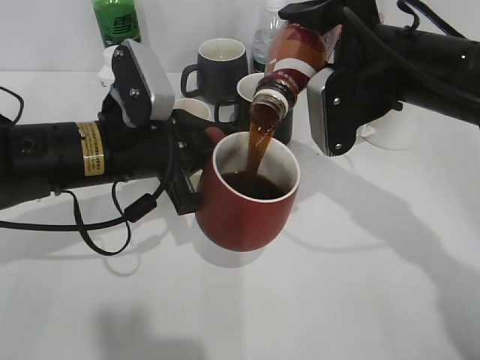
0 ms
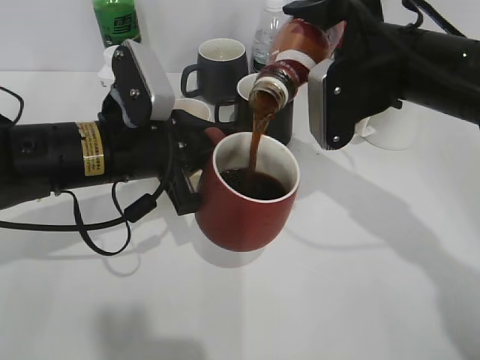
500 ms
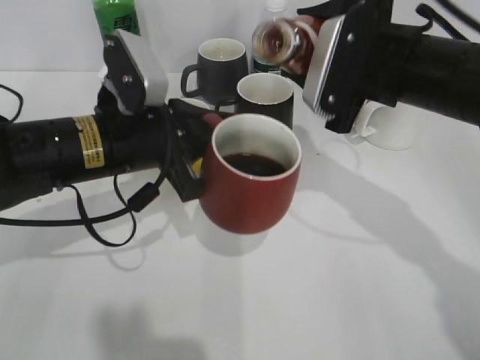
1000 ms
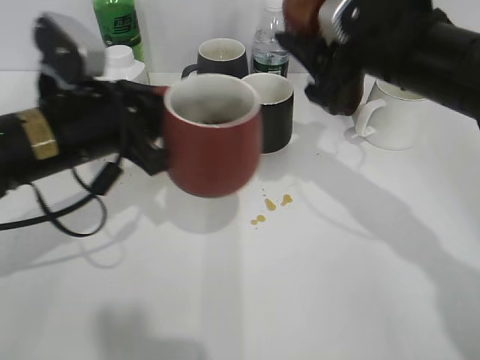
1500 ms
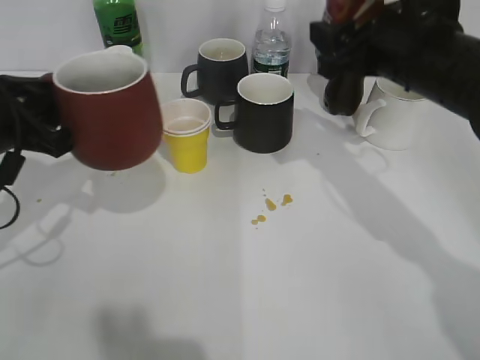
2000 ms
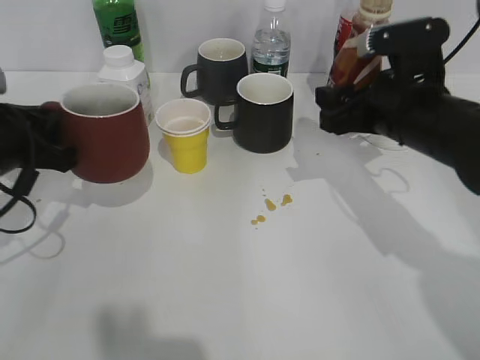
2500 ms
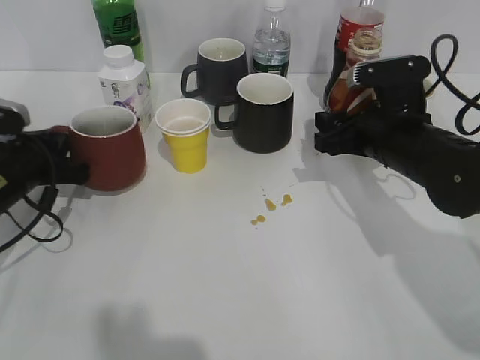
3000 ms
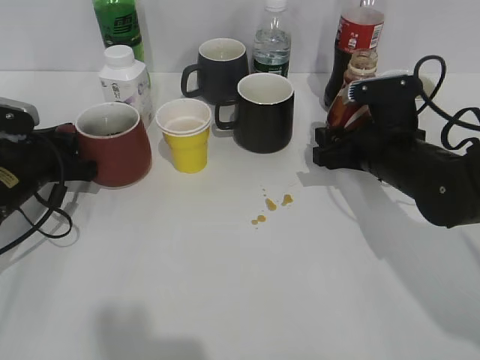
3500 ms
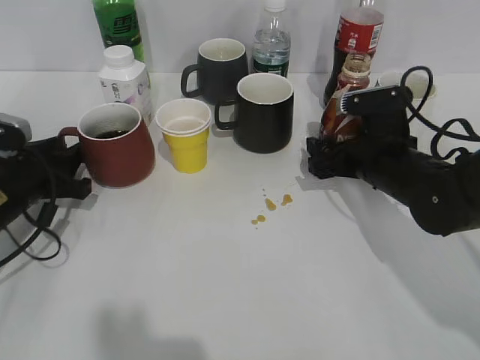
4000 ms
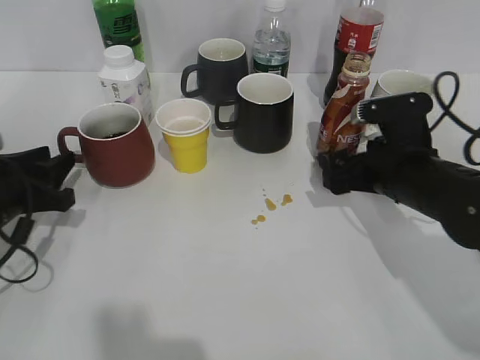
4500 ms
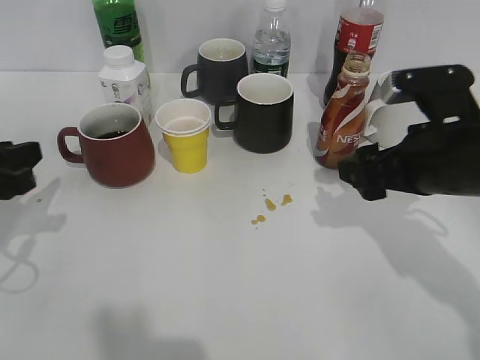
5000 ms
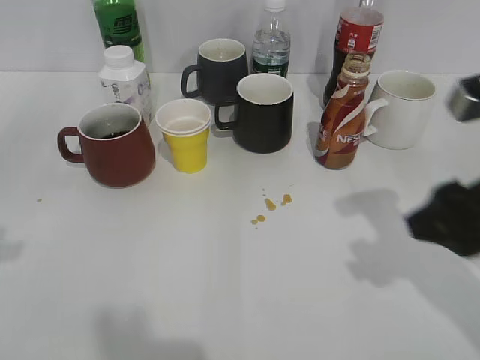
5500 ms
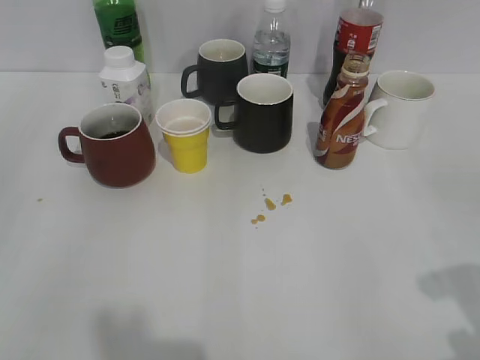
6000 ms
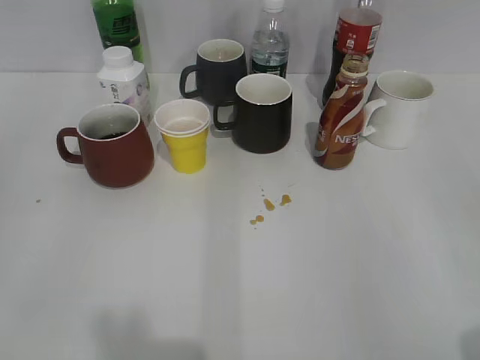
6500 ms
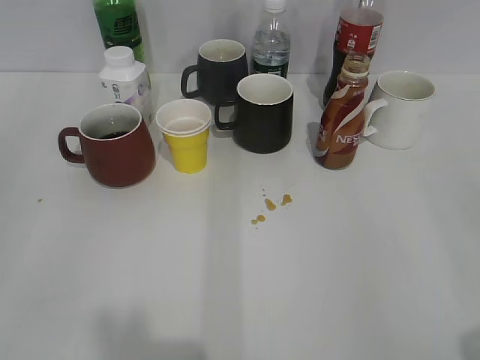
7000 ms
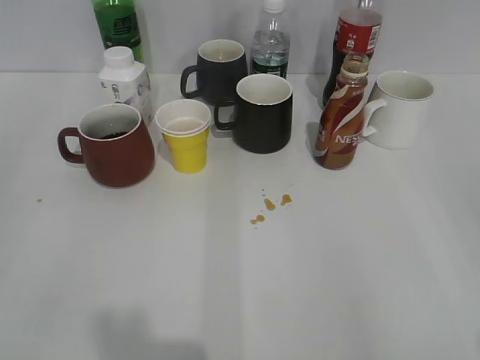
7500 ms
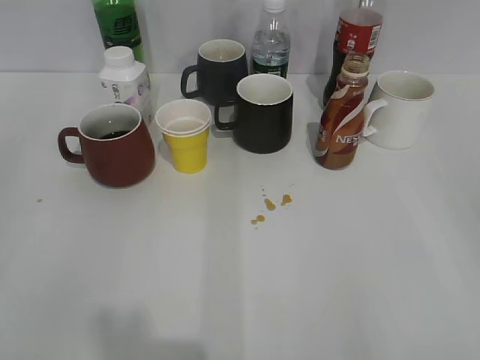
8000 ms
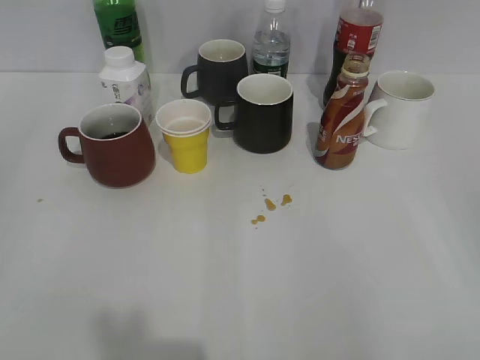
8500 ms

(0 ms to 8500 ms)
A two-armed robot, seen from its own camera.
Step, 1500 ms - 4500 ms: Place the red cup on the table with left gripper.
0 ms - 2000 ms: The left gripper moves to the left, roughly 10 cm.
2000 ms - 4000 ms: Both grippers travel together downward, about 10 cm. The right gripper opens up, while the left gripper opens its fingers.
4000 ms - 6500 ms: The left gripper shifts some 35 cm backward and upward. Meanwhile the right gripper shifts approximately 40 cm backward, upward and to the right, and closes its fingers.

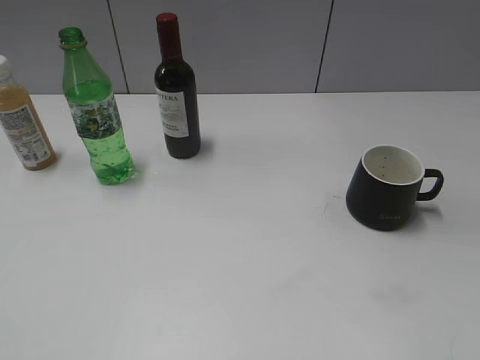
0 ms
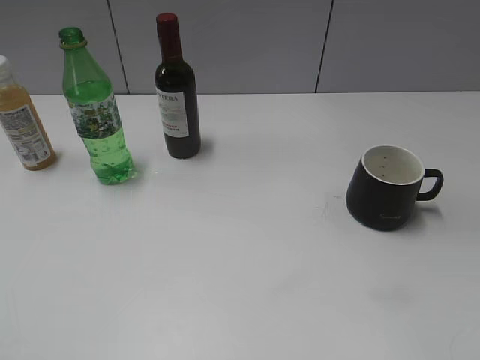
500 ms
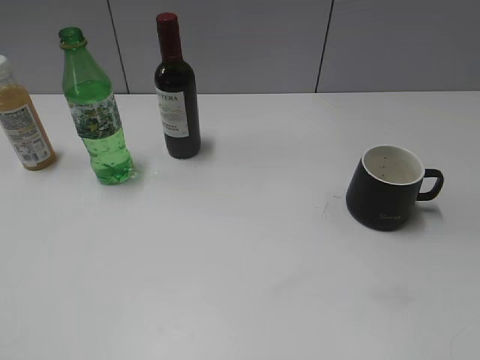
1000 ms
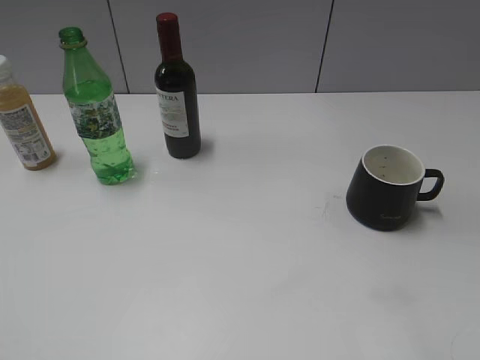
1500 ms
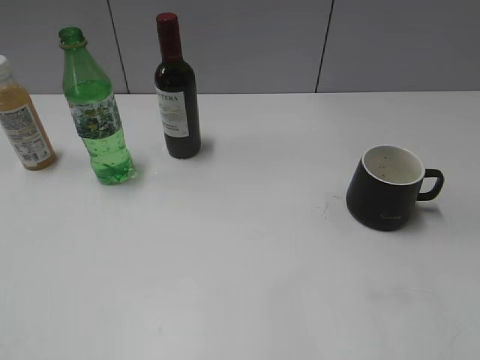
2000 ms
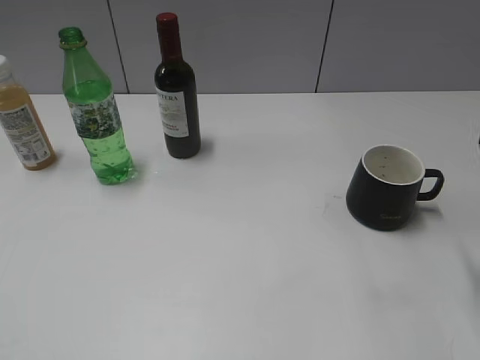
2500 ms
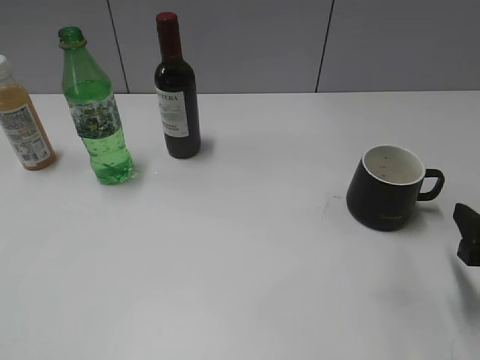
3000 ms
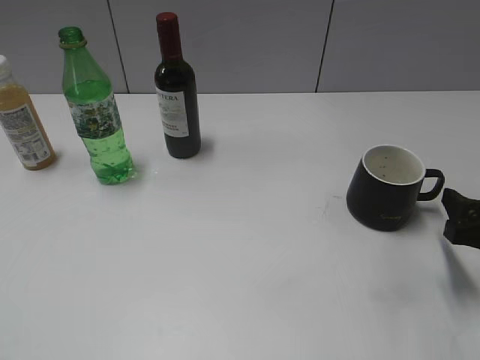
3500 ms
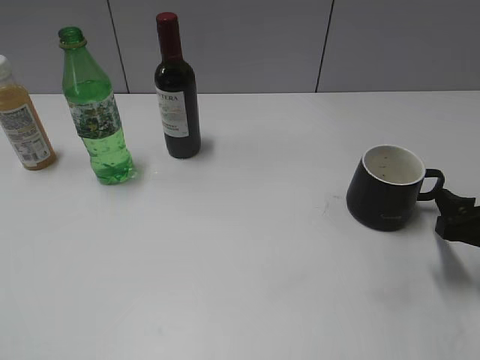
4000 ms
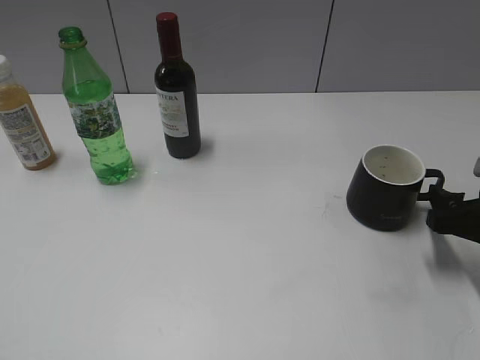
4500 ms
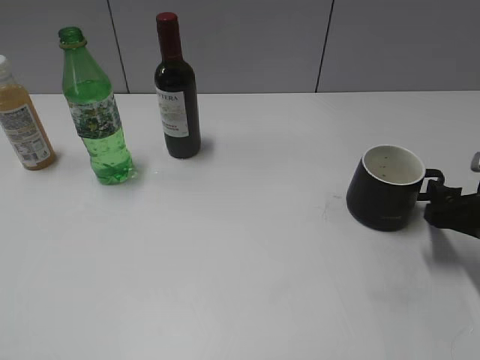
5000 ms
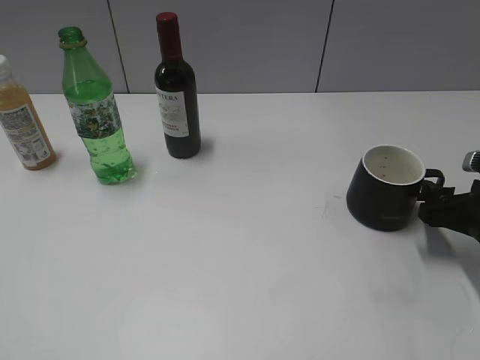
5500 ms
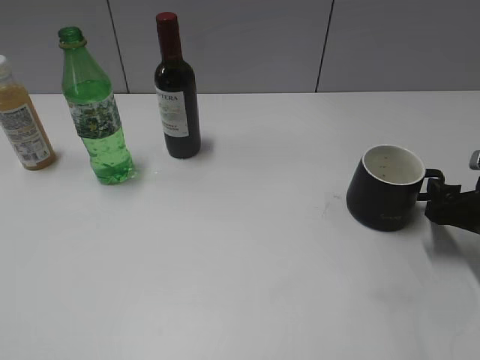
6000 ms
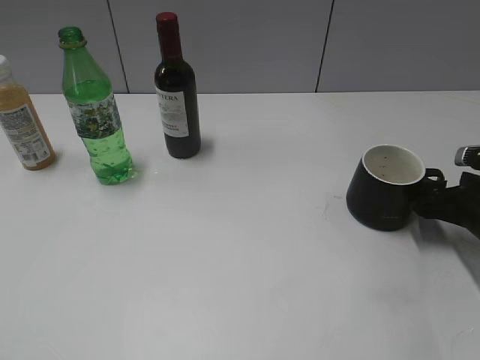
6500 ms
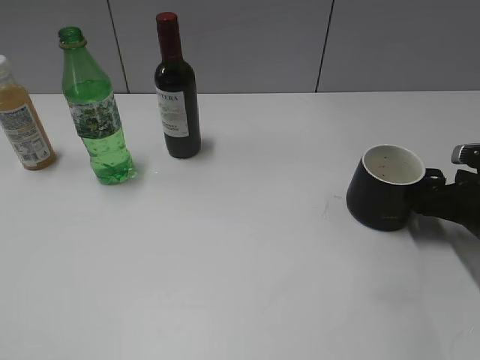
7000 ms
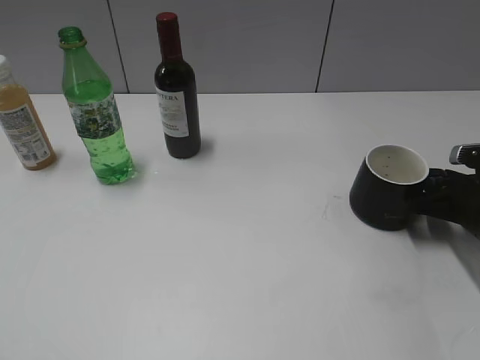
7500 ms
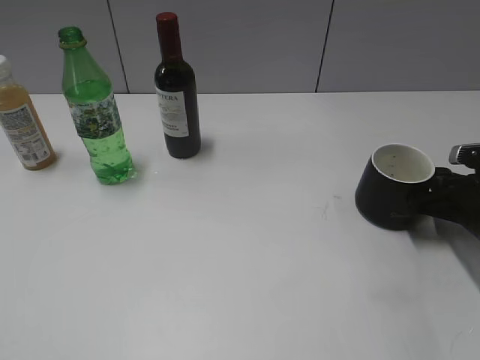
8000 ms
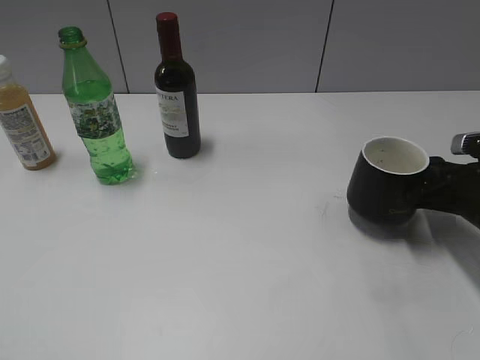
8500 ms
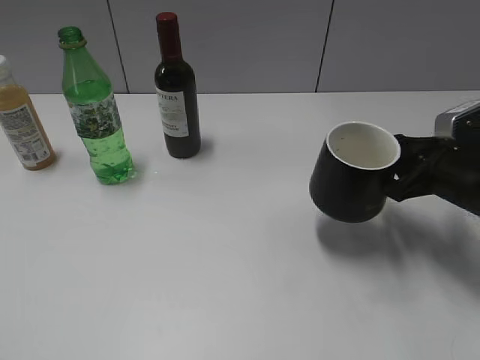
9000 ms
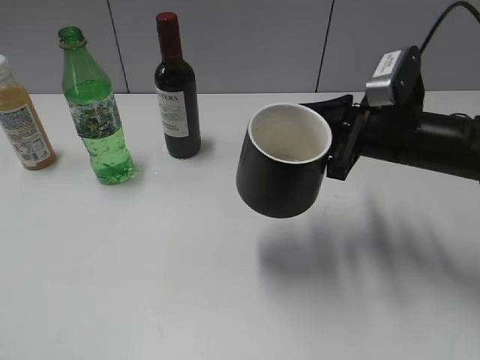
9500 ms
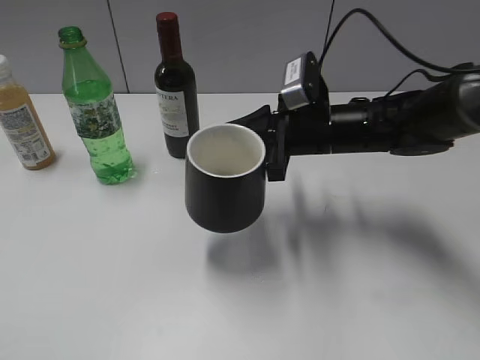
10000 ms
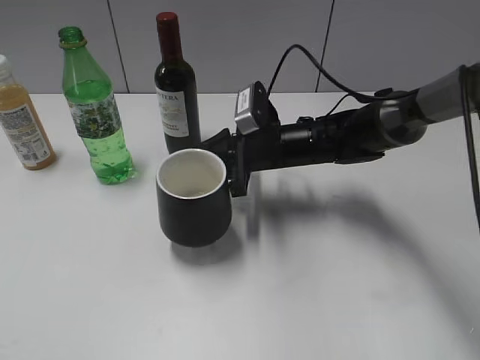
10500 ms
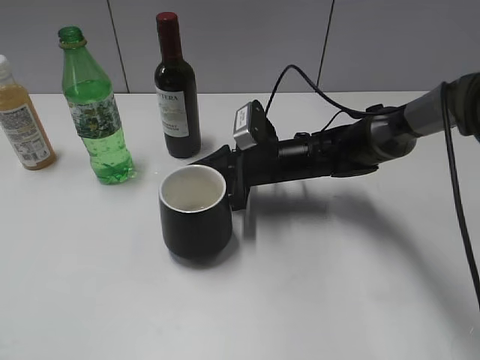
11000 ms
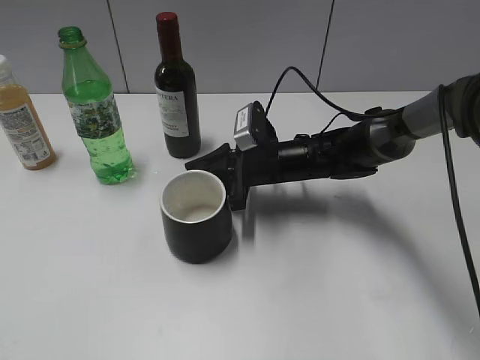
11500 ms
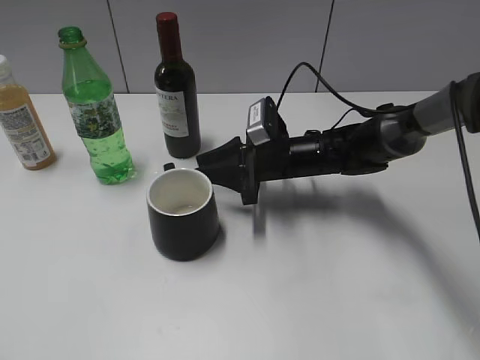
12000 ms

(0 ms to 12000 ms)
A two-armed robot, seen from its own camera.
Step, 1000 ms - 8000 ms: Grasp the black cup with right gripper.
Step, 8500 ms - 11500 ms: Place the black cup in the center of view with right gripper.
2000 ms - 4000 ms: The right gripper travels downward and forward by approximately 15 cm.
4000 ms - 6000 ms: The grippers move only a little.
6000 ms - 8000 ms: The right gripper closes up.
8000 ms - 10000 ms: The right gripper shifts approximately 20 cm to the left.
10000 ms - 12000 ms: The right gripper heads downward, covering about 10 cm.

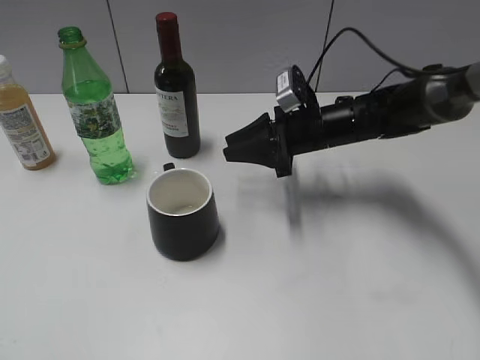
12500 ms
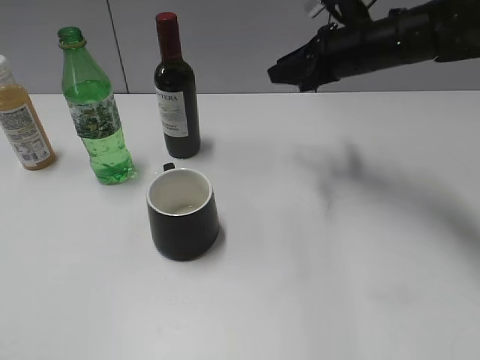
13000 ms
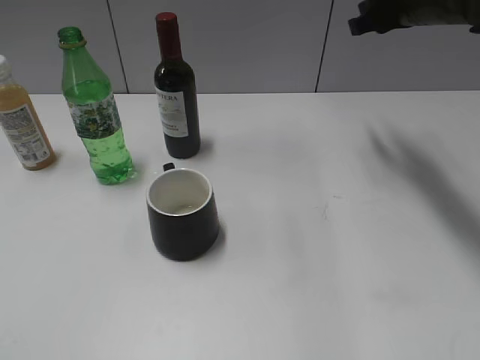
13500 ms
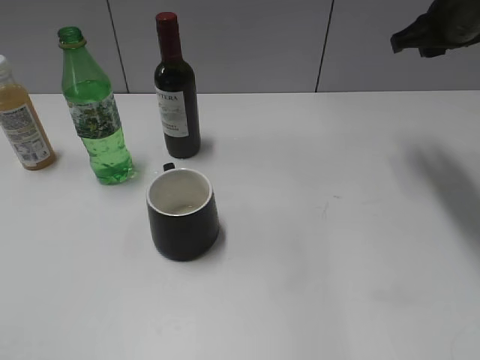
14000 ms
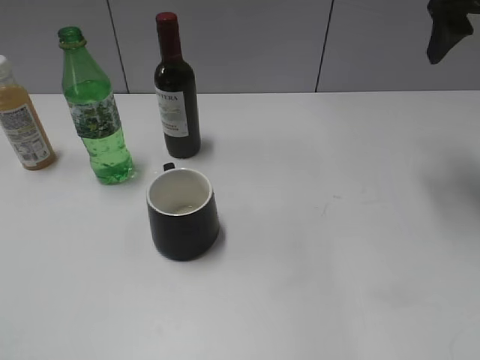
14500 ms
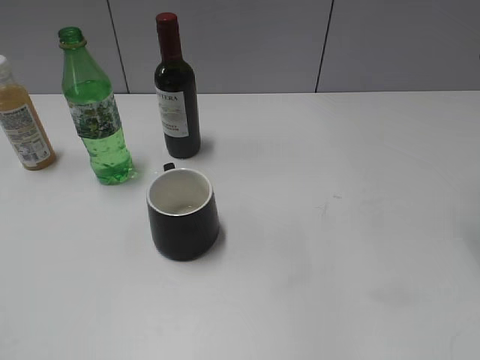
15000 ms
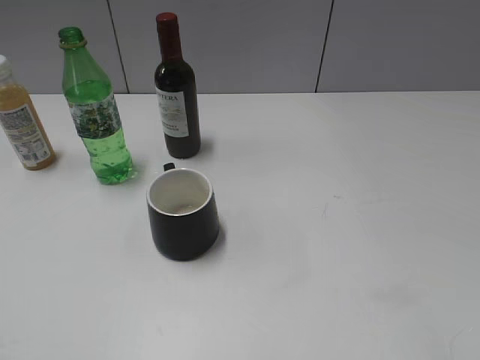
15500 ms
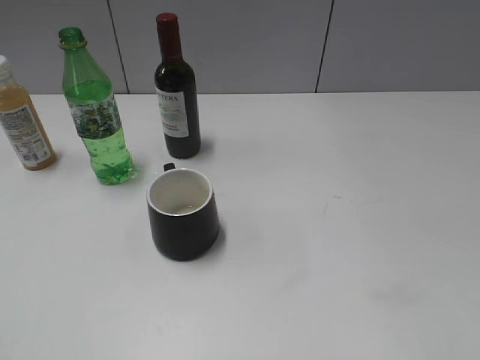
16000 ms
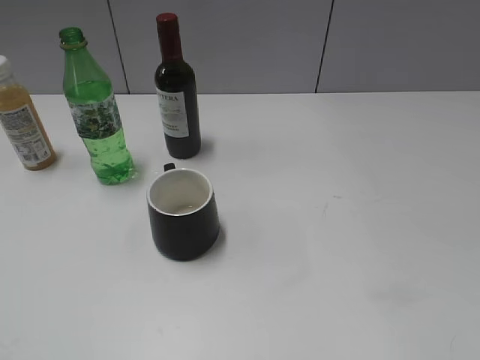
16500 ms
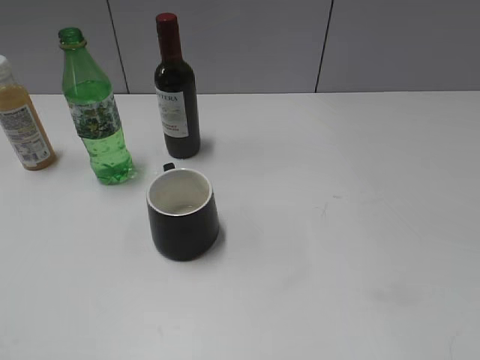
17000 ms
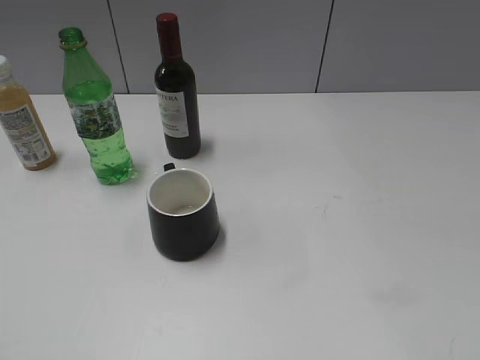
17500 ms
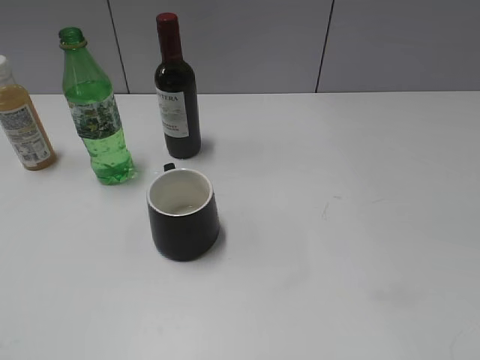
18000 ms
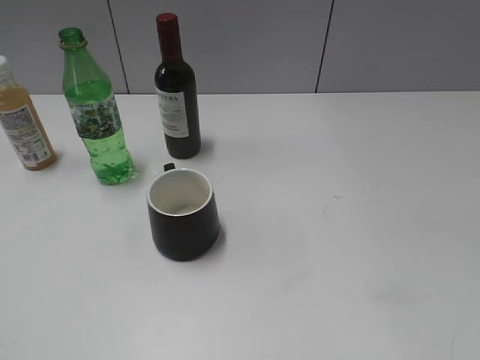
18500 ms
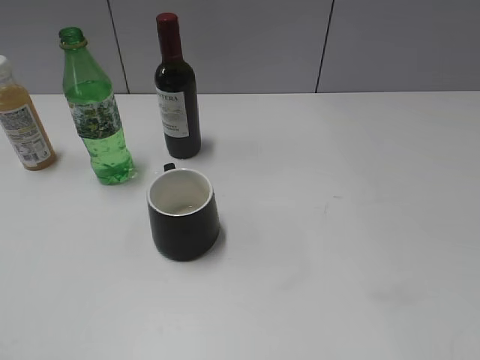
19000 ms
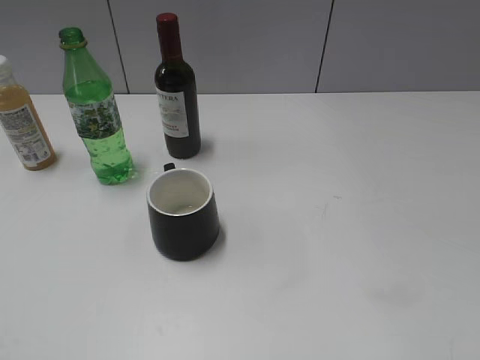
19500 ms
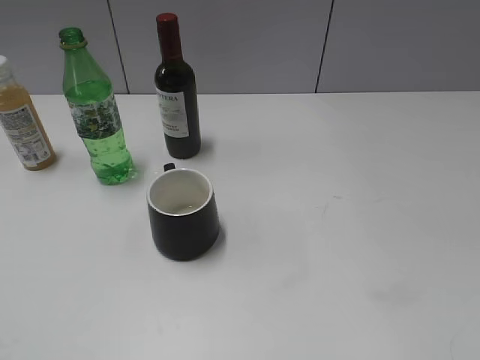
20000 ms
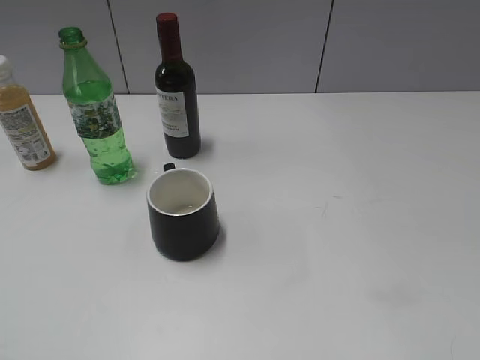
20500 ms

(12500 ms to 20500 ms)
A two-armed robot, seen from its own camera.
12500 ms - 14500 ms: The right gripper is displaced upward and to the right by roughly 25 cm, and opens its fingers.
14500 ms - 16500 ms: The right gripper heads backward, covering approximately 40 cm.
